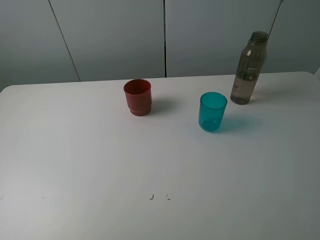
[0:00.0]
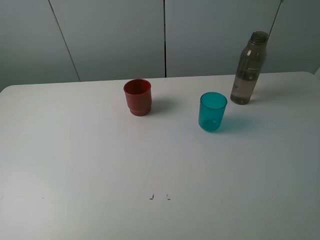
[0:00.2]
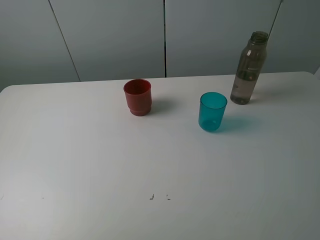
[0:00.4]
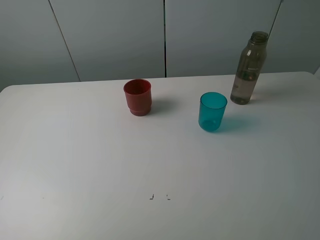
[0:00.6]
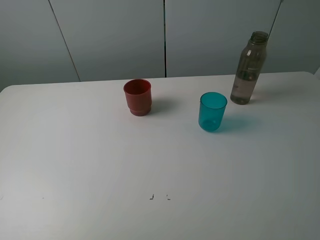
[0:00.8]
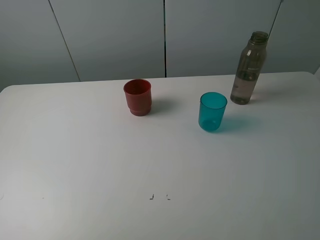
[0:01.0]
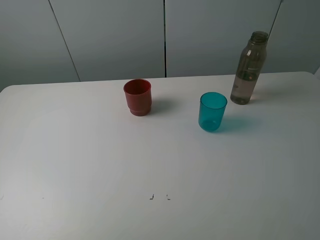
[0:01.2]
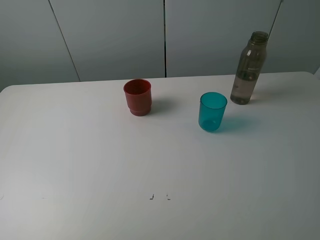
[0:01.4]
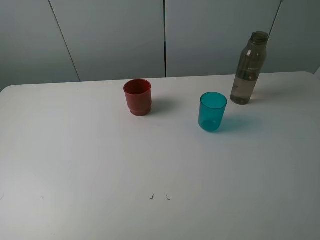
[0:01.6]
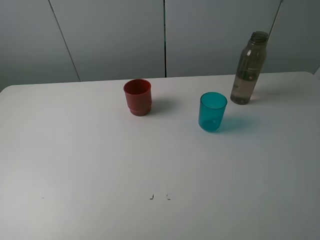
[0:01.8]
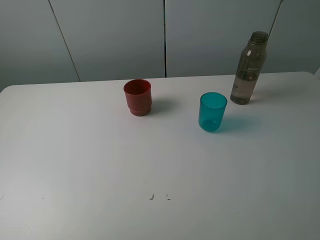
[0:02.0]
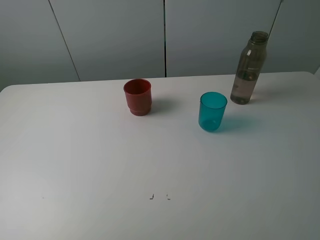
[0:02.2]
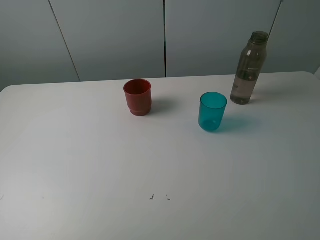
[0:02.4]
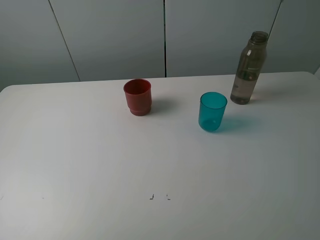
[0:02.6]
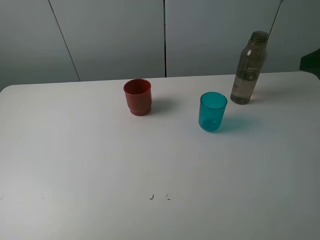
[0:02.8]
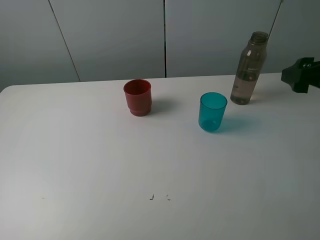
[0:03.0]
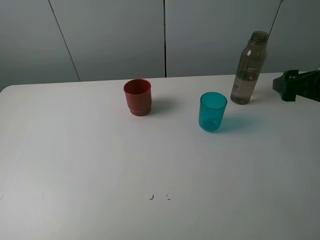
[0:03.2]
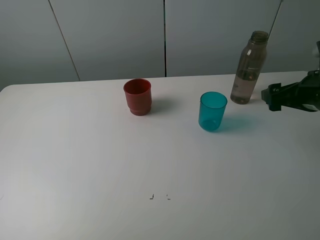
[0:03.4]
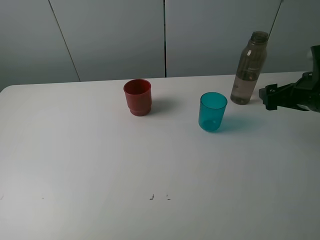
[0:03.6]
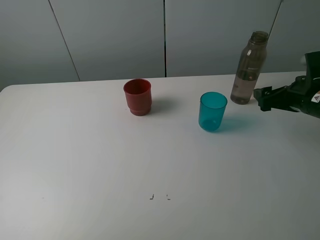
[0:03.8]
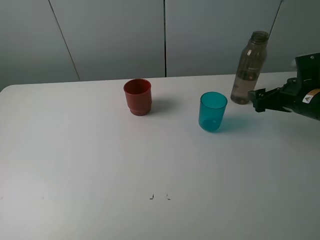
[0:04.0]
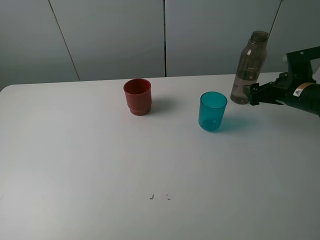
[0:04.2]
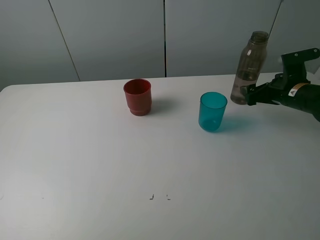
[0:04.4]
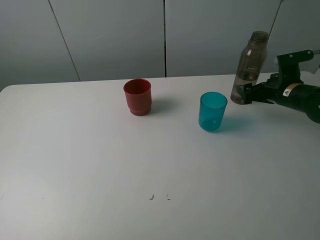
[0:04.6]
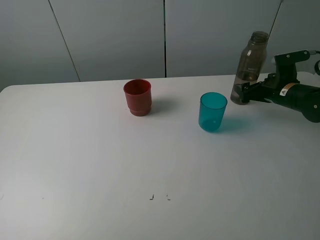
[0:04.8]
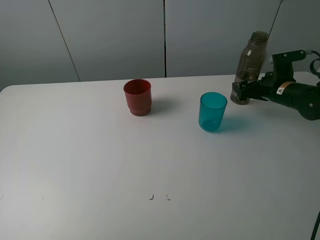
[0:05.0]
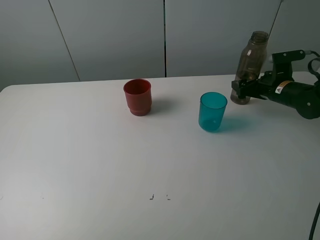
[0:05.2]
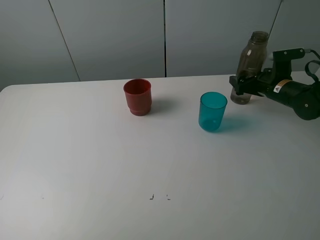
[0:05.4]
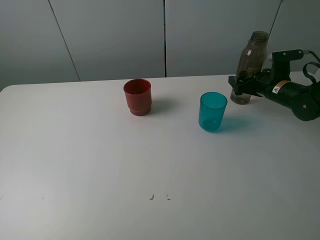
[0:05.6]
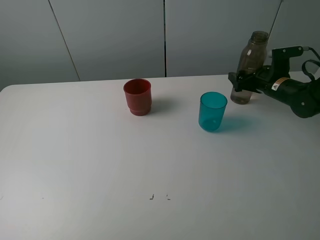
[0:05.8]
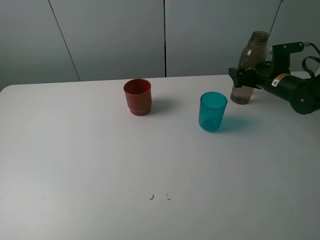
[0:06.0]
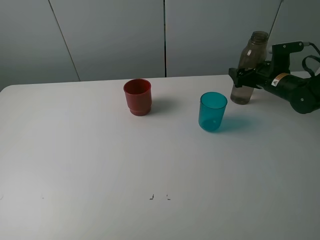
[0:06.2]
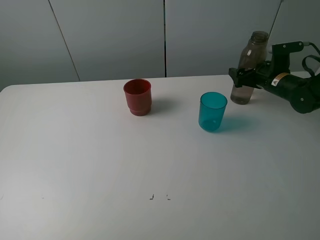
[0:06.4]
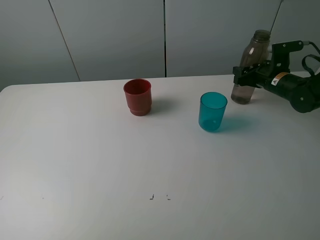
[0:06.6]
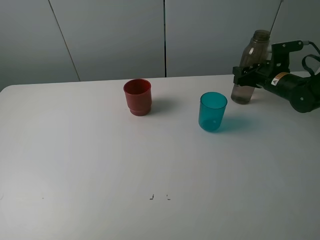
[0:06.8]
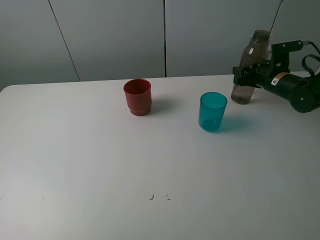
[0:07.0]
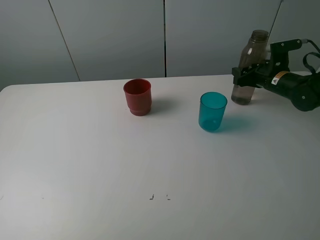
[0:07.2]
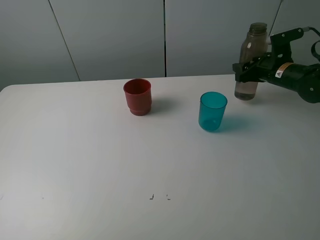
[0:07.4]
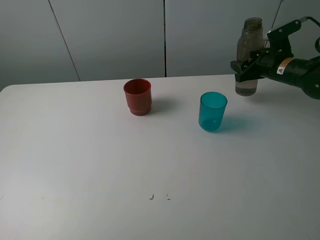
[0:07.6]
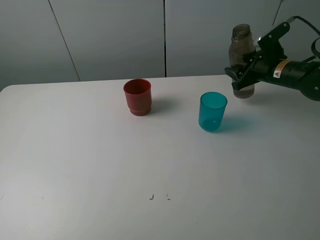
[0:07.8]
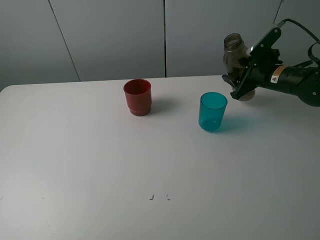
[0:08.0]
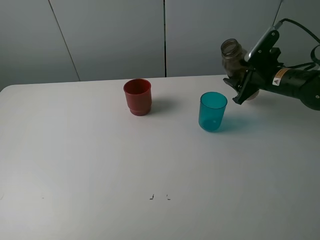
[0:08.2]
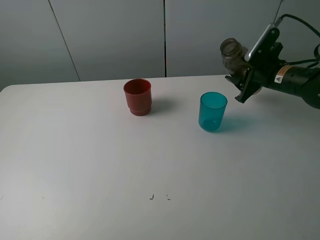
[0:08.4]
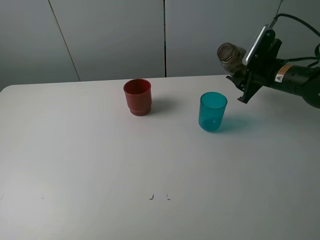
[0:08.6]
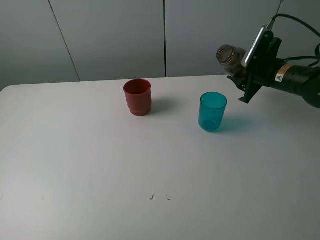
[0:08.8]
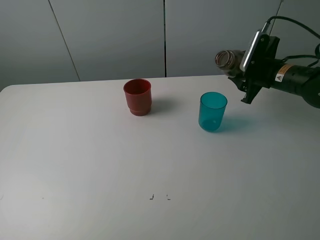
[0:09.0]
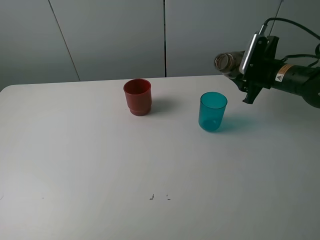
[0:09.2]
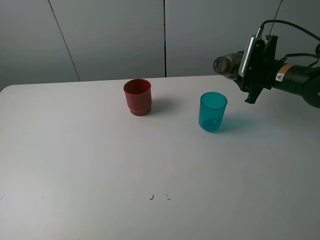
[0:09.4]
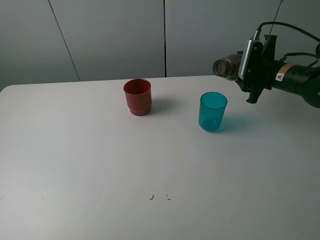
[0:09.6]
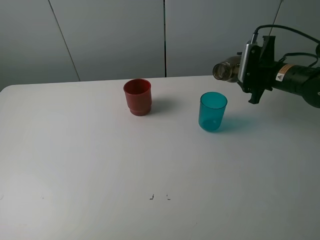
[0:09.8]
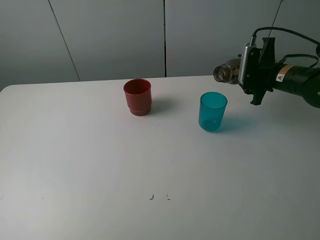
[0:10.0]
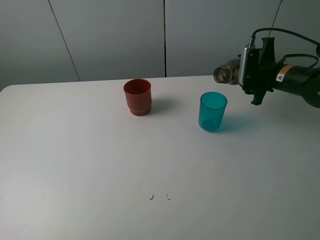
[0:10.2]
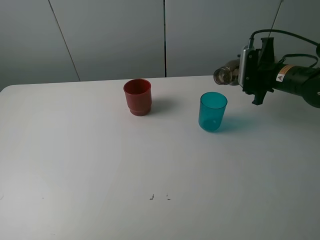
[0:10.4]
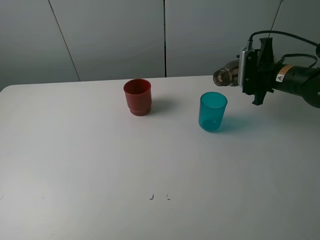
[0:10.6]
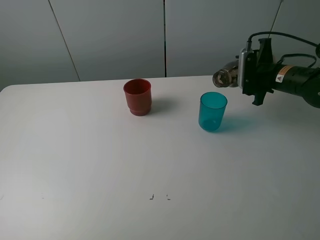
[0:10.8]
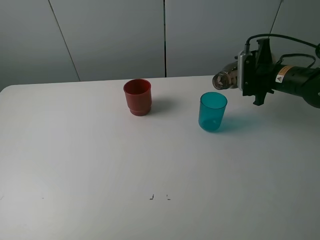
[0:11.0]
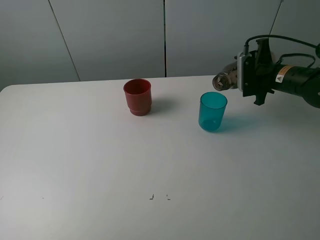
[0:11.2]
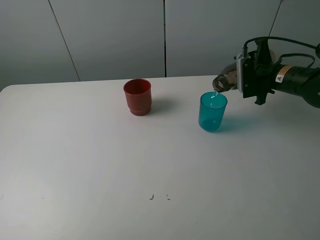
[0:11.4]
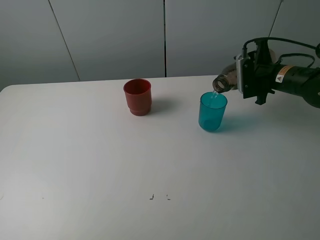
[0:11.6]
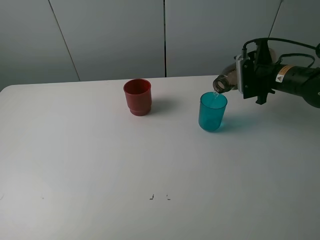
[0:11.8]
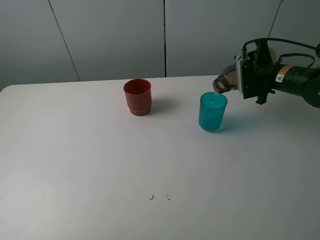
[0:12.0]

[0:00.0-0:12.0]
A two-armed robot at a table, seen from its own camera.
Task of the whole recording: pick up the bottle and pour water into the cup, then pick up the cup containing water and pour it into another cup.
Step, 0:00.0 to 0:06.6: Grasp the brown bottle with the right gripper.
0:00.0 to 0:01.6: Both grippers stay put.
0:01.6 to 0:03.0: The right gripper moves forward, roughly 20 cm.
0:03.0 to 0:04.4: The right gripper heads downward and forward, covering roughly 20 cm.
0:04.4 to 0:06.0: The right gripper shifts some 5 cm forward.
0:06.0 to 0:07.6: The right gripper closes its fingers.
0:10.4 to 0:12.0: The grippers make only small movements.

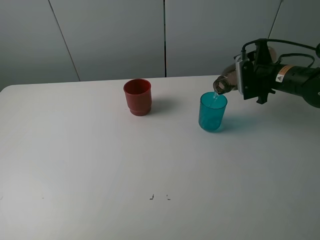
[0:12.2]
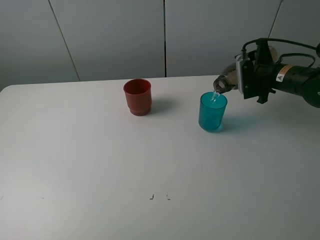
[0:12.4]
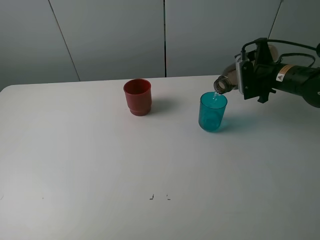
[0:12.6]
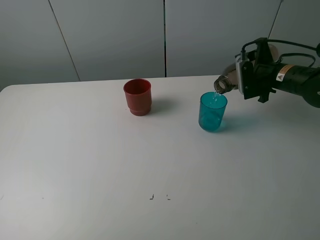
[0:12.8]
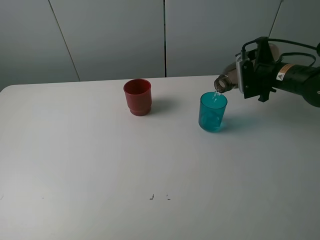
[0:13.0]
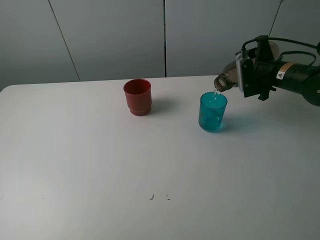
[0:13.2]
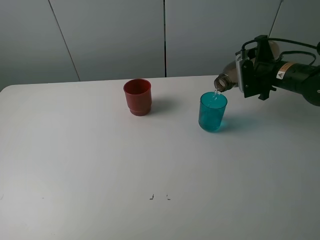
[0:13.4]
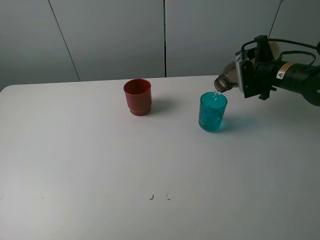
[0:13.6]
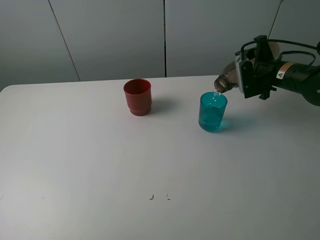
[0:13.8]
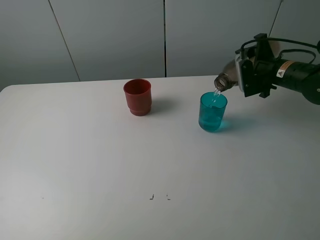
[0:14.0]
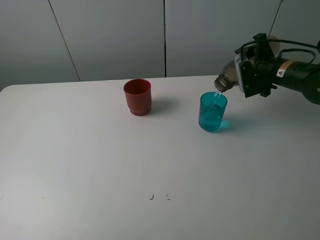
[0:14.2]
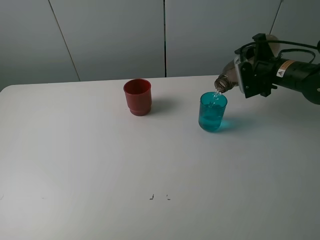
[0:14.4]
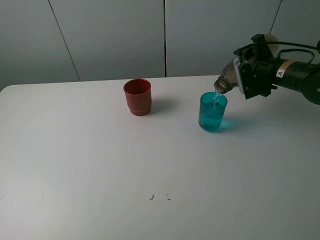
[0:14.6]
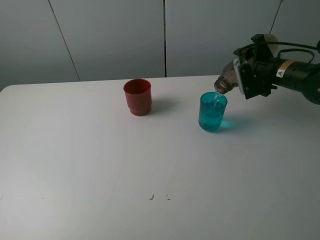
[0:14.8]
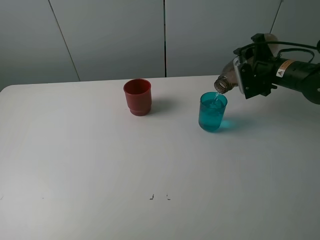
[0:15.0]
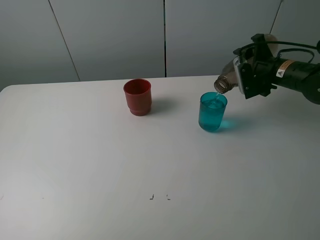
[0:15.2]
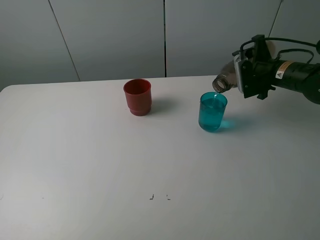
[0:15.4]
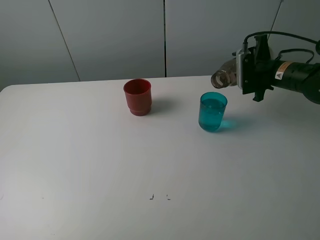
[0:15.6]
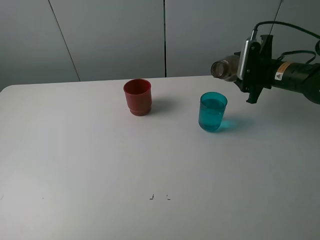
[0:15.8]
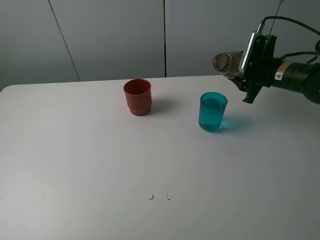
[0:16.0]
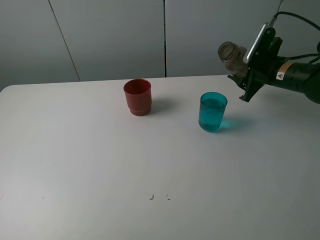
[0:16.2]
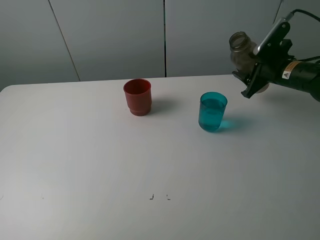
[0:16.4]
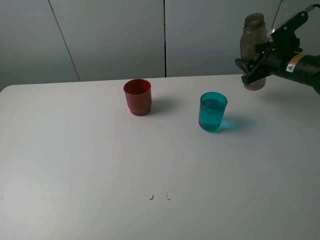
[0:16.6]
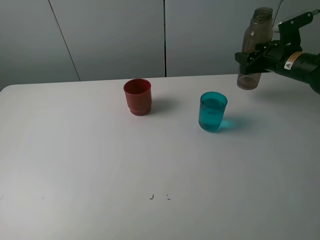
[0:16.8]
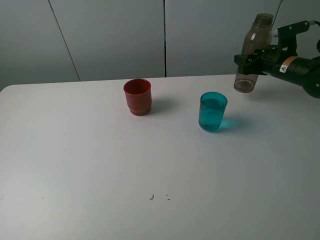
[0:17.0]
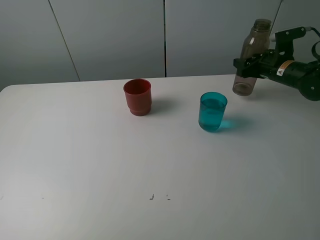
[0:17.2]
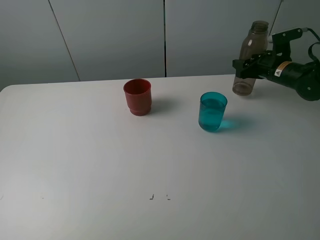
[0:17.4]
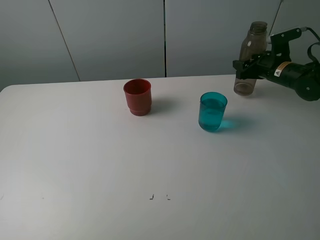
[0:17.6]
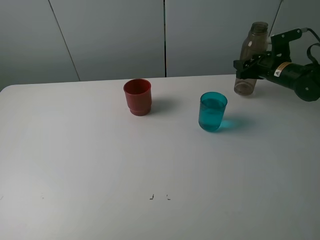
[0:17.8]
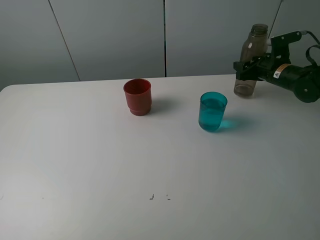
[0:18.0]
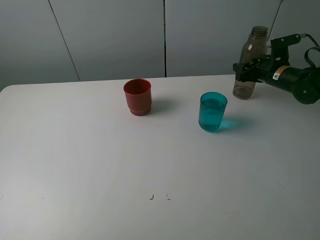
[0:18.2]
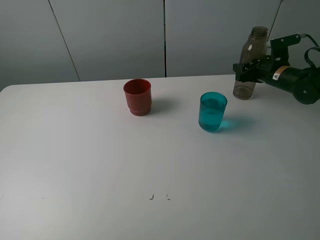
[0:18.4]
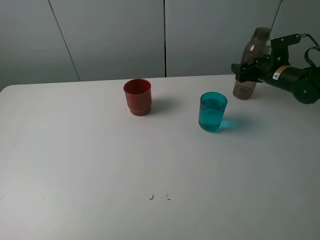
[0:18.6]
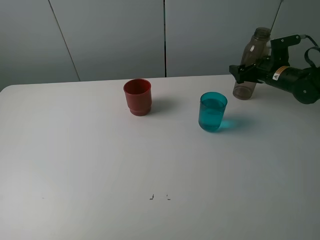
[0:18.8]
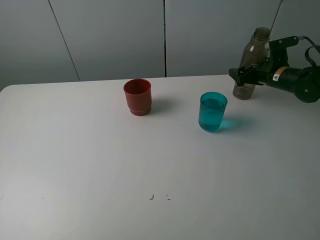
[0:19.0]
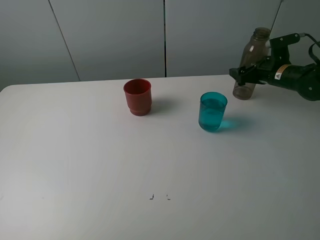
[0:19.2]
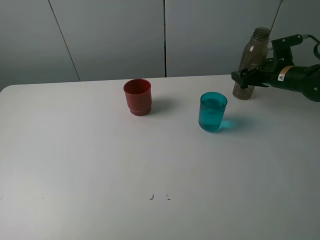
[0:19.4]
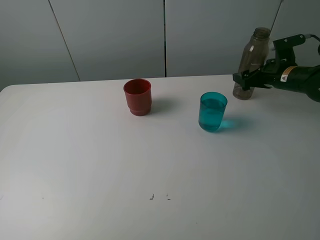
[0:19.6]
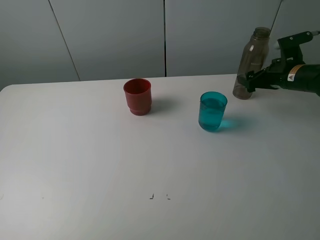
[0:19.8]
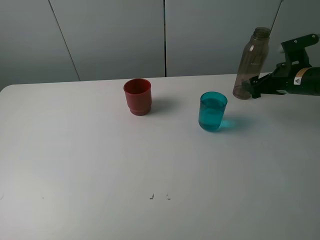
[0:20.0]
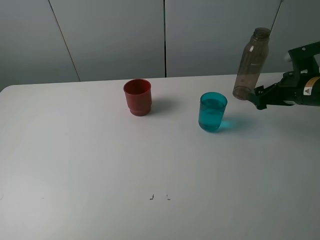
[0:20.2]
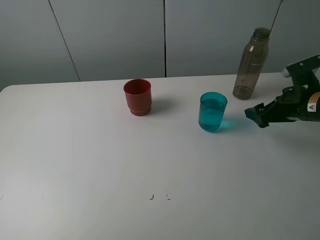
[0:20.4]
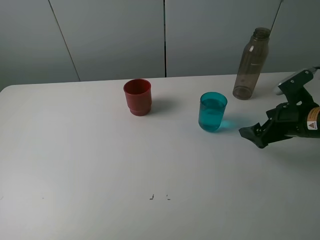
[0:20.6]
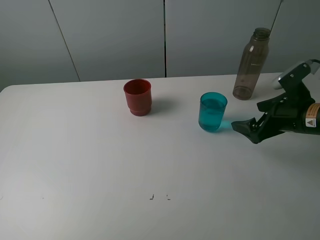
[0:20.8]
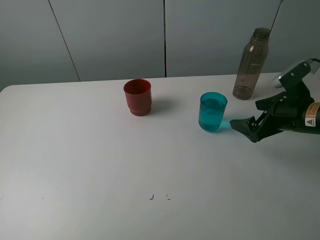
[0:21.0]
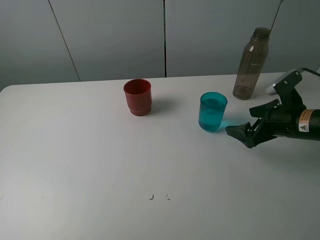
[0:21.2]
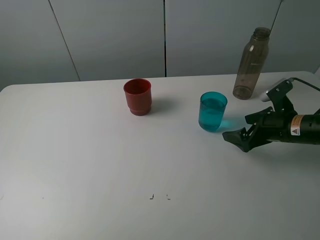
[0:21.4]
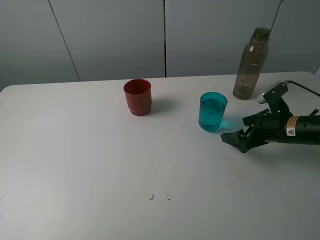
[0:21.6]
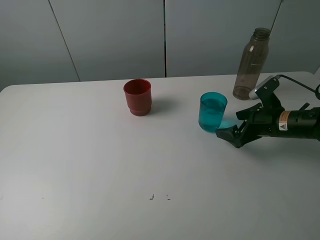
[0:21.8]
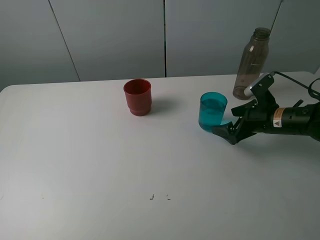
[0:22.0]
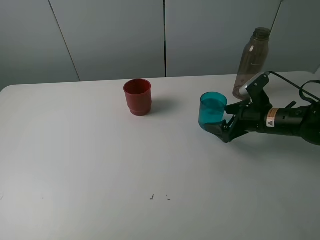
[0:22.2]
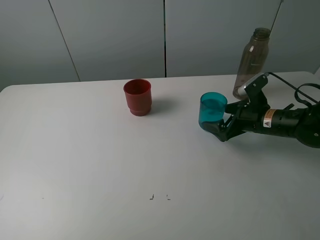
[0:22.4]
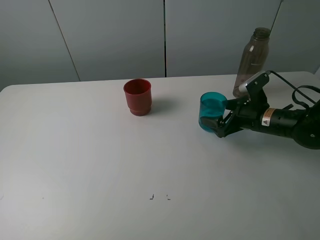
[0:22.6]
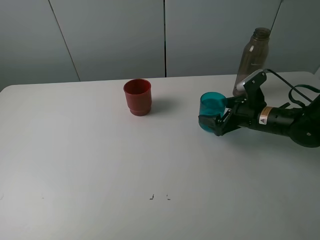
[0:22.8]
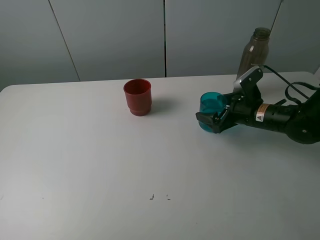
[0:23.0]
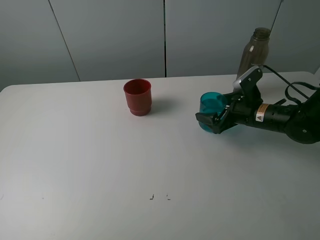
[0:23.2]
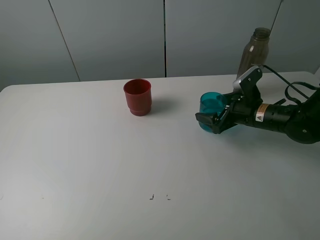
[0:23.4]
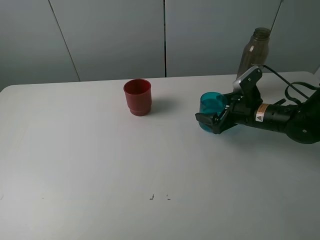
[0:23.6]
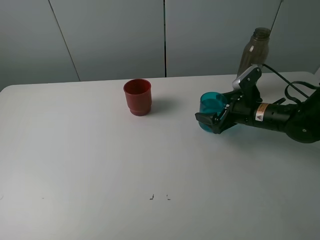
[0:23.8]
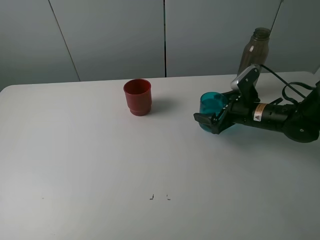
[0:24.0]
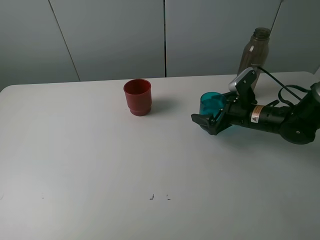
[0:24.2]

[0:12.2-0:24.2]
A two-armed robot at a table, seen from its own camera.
Task of the whole recording: pick up the bottle and pour water into the cup, then pick up the cup containing water and pour it into another cup.
Step, 0:12.2 to 0:15.6: Pour water from brown bottle to blue cup with the right gripper.
Step, 0:15.8 to 0:18.8: Place the brown bottle with the right gripper.
0:12.2 to 0:13.8: Both grippers stay put.
0:13.8 to 0:15.2: The grippers stay close to where they were, moving slightly.
0:16.6 to 0:18.2: The right gripper is displaced downward by some 5 cm.
0:18.2 to 0:19.8: The right gripper moves backward, roughly 5 cm, and opens its fingers.
0:19.8 to 0:21.2: The right gripper goes roughly 10 cm backward.
0:21.2 to 0:22.6: The right gripper heads forward, covering approximately 5 cm.
0:22.6 to 0:24.2: The grippers stay close to where they were, moving slightly.
